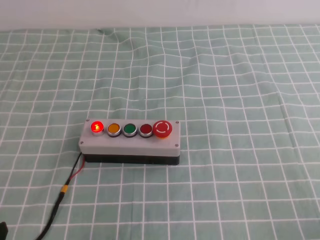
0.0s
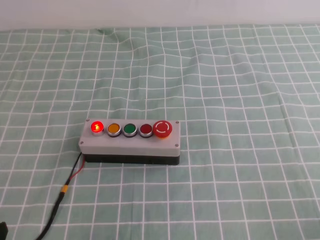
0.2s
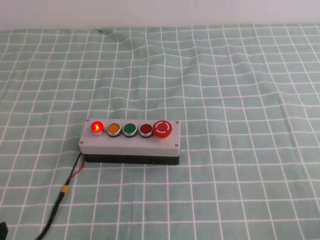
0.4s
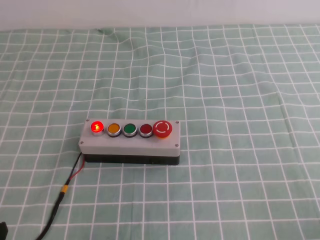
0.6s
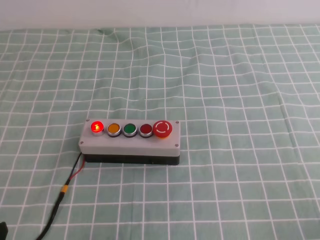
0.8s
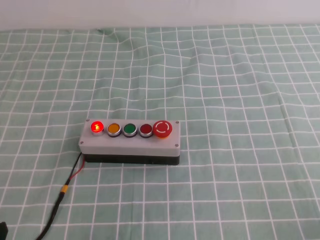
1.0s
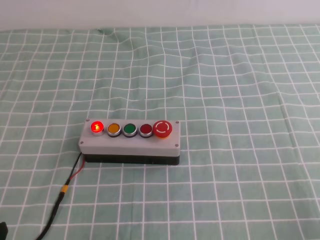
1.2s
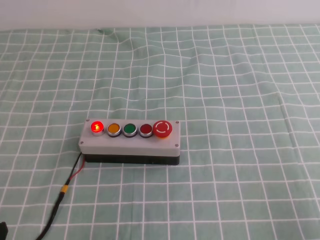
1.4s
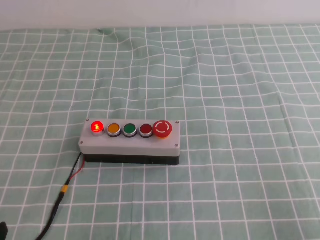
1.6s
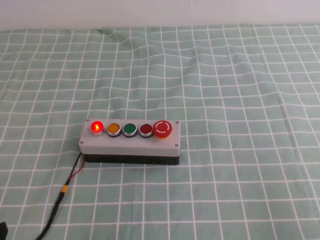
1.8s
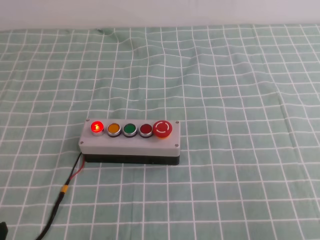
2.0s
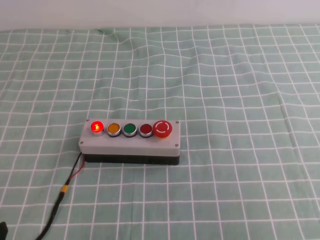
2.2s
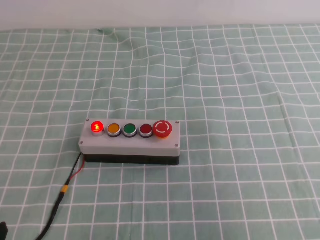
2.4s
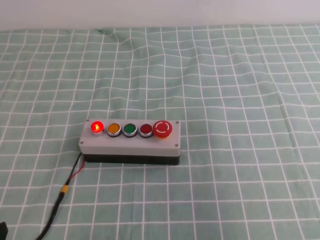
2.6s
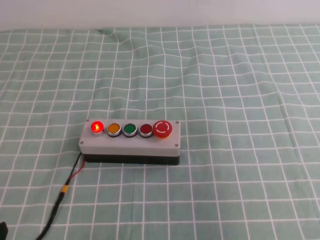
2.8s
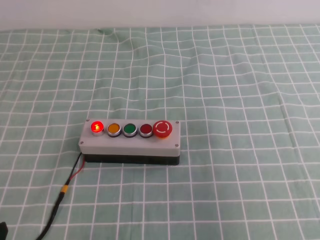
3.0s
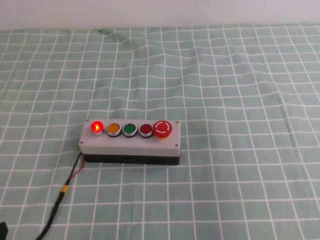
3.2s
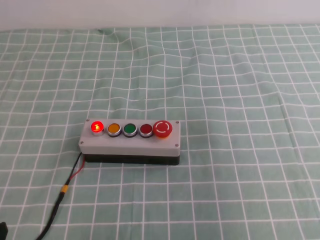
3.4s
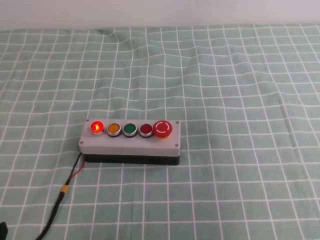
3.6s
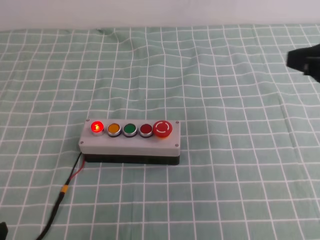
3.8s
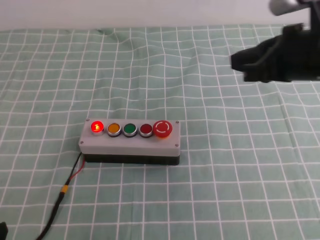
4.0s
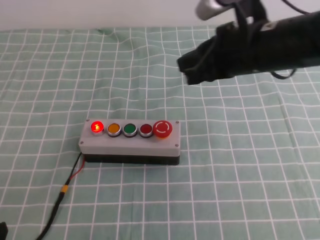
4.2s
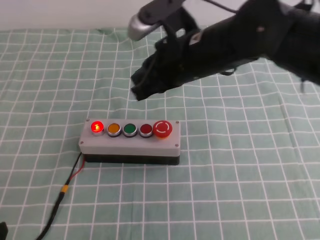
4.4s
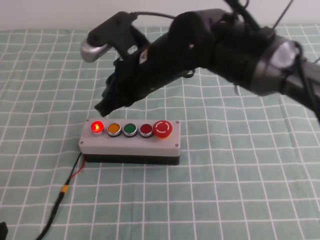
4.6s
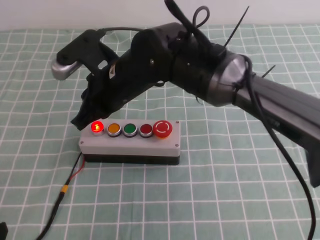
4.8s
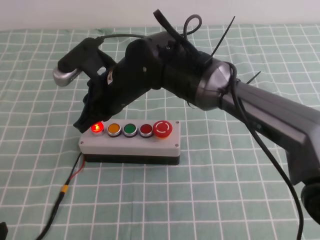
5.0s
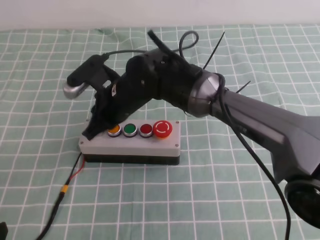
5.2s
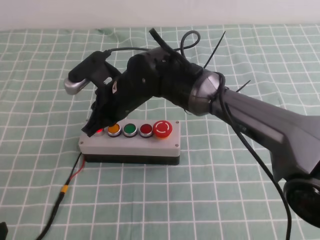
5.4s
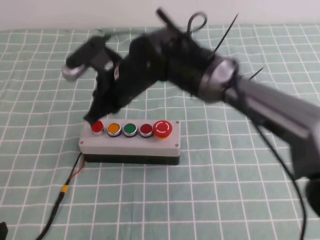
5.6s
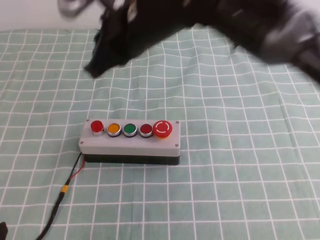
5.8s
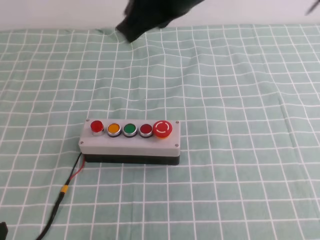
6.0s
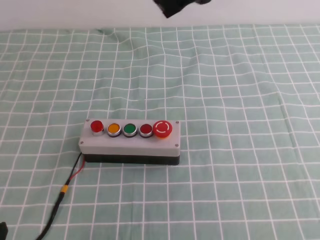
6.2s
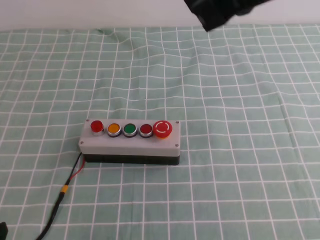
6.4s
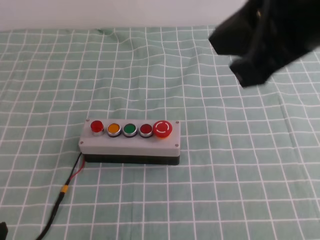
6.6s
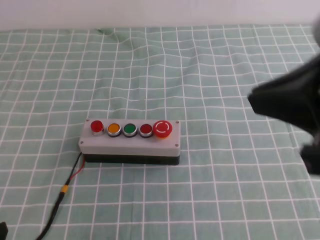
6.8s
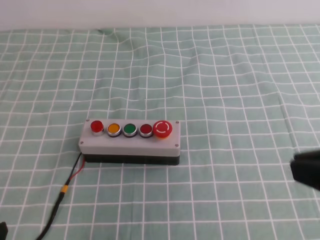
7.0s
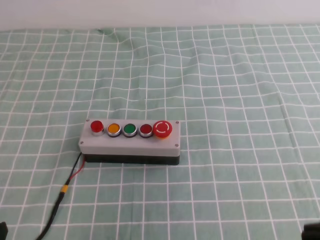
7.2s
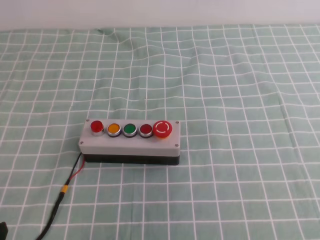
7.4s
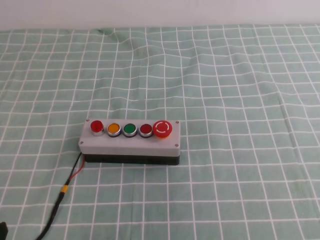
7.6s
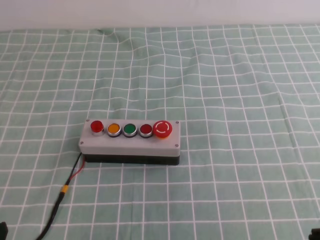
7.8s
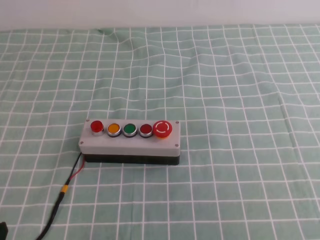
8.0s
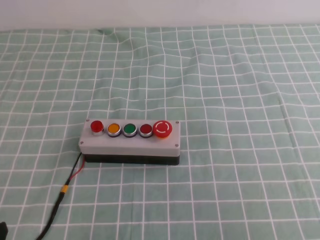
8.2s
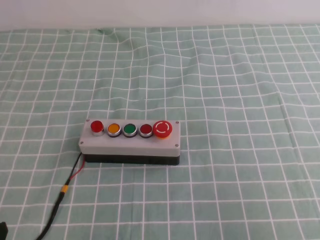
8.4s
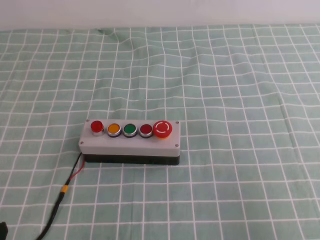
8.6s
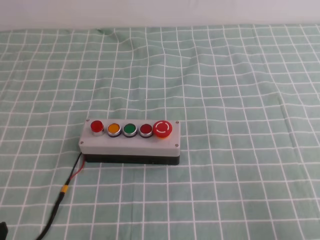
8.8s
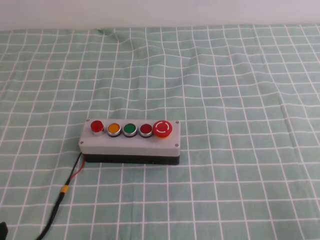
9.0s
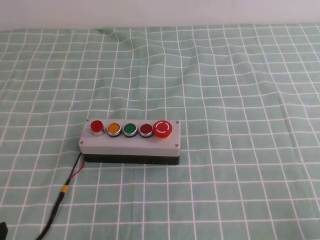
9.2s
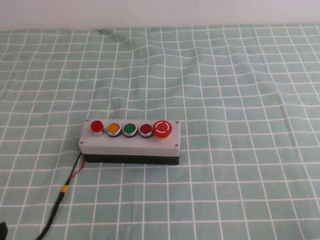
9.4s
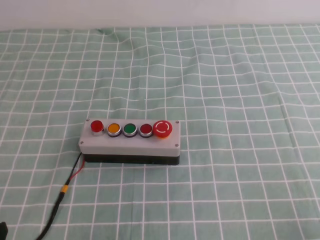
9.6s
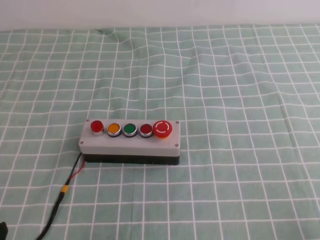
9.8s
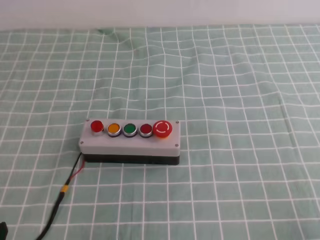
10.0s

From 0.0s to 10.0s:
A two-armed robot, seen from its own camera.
Task of the whole recording: press the button switch on the cyan tablecloth with the right gripper to turn off the button.
Step, from 0.0s to 10.0s: Press the button to turn off.
From 1.4s to 2.8s: The right gripper moves upward, about 20 cm.
From 2.8s to 4.2s: The right gripper heads forward and to the left, covering some 30 cm.
From 4.2s to 5.8s: The right gripper moves to the left, about 15 cm.
From 5.8s to 7.2s: The right gripper shifts roughly 35 cm backward and to the right.
From 7.2s to 8.6s: The right gripper is displaced to the right and downward by roughly 10 cm.

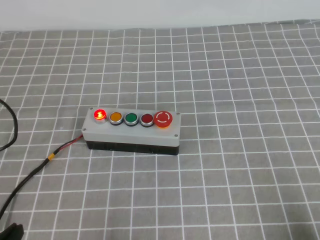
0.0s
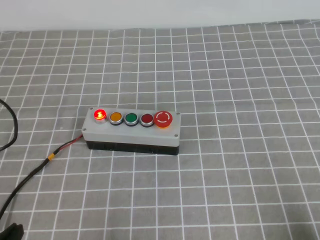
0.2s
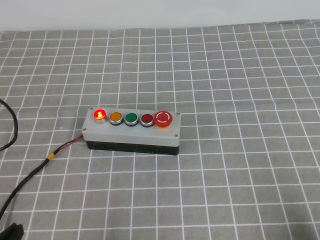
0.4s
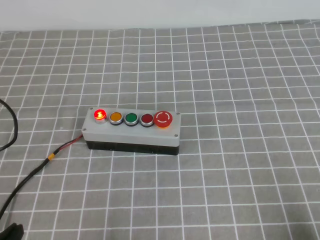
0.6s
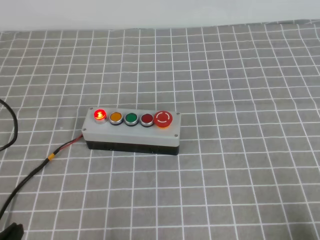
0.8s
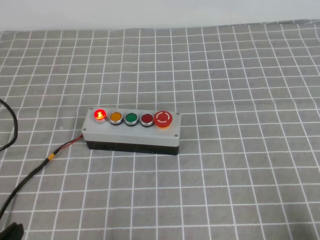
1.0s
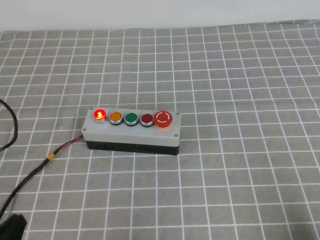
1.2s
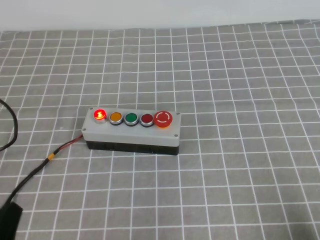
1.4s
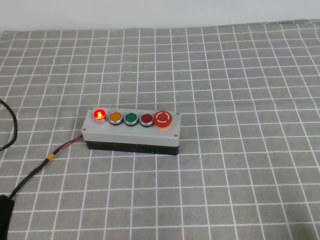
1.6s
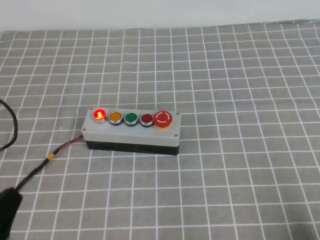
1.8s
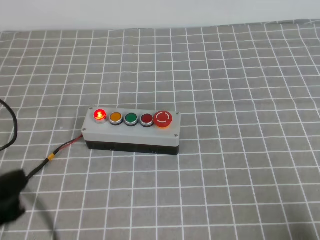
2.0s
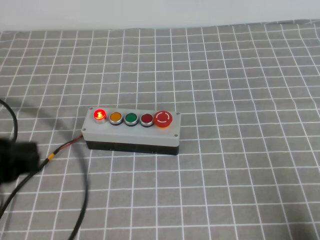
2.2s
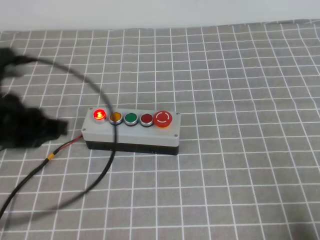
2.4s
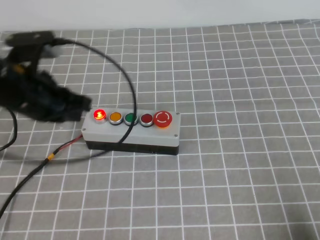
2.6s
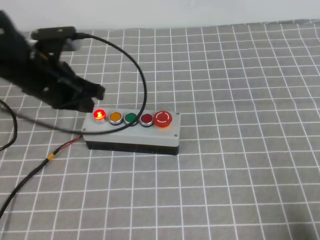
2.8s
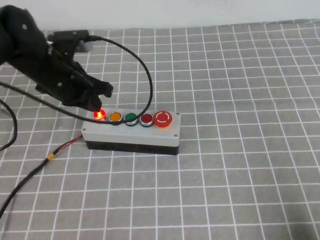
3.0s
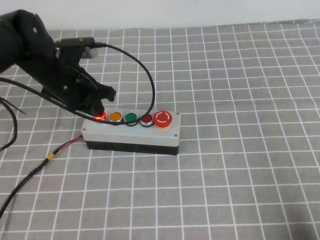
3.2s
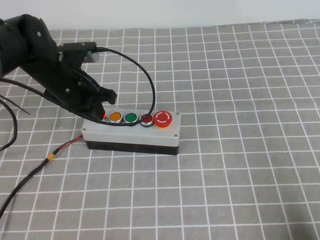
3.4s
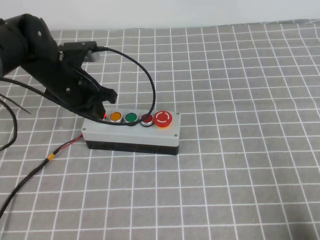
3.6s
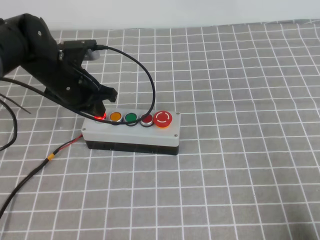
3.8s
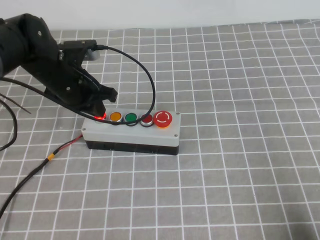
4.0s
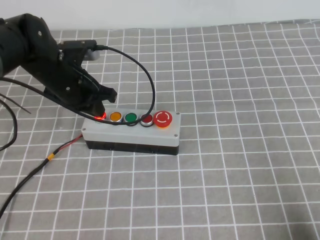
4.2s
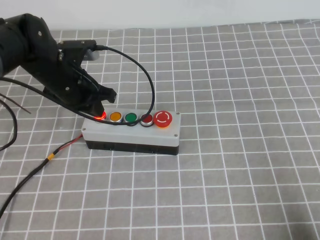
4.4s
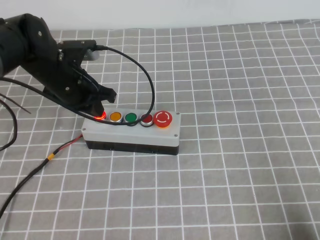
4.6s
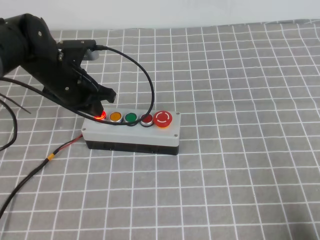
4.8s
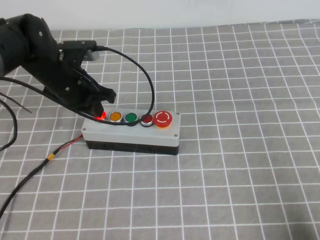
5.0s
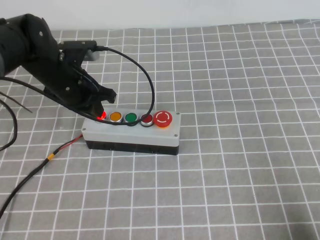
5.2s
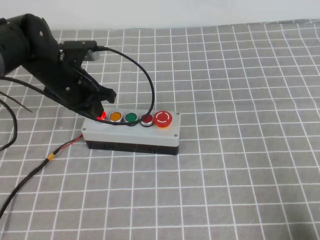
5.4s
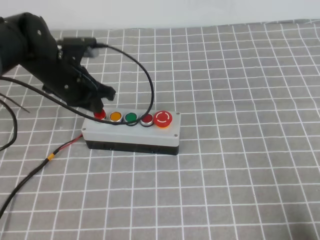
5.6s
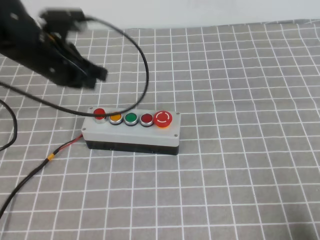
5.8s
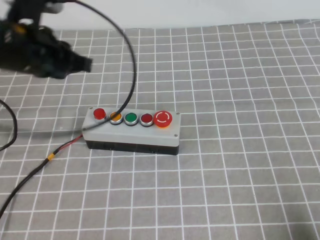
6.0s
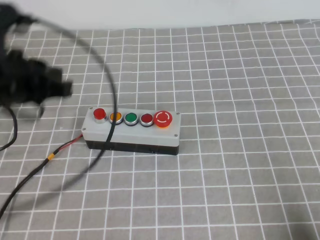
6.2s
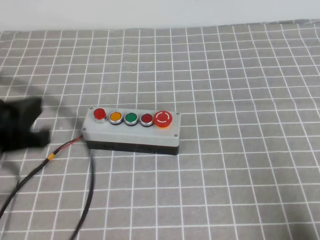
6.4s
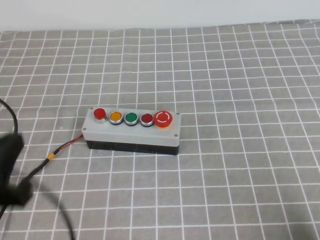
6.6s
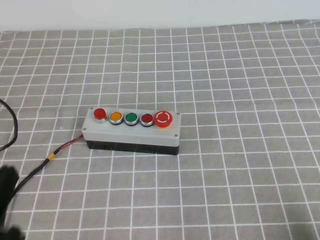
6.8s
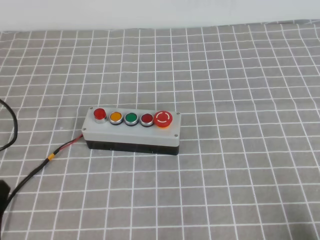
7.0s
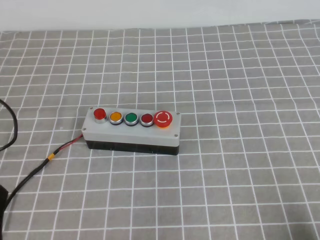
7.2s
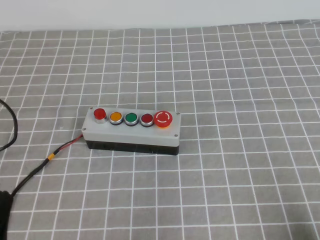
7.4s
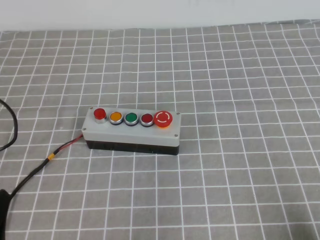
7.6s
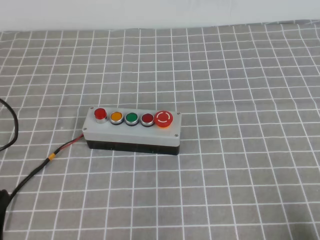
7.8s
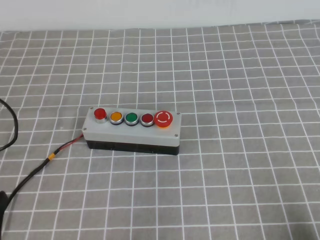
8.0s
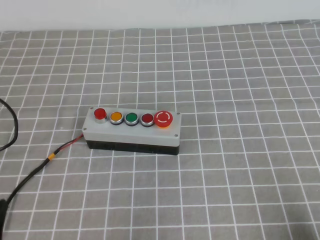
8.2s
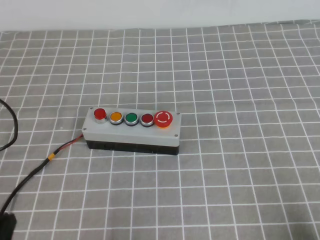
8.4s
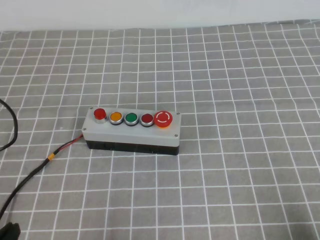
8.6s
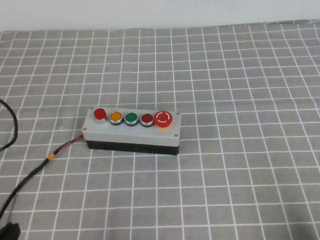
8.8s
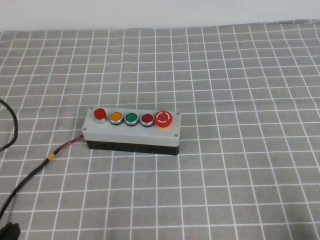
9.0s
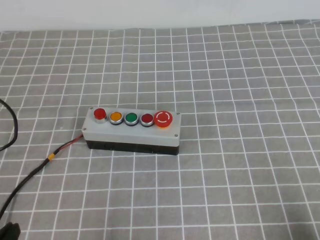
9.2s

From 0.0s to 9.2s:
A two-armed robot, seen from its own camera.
Task of the whole recording: press the button switch on the grey tablecloth with the left gripper to turn off the button.
Step, from 0.0s to 9.2s: Press the button to turn off.
From 1.6s to 3.0s: The left gripper travels forward by about 30 cm.
From 3.0s to 4.6s: The left gripper shifts by about 5 cm.
From 4.6s to 6.2s: The left gripper moves upward and backward, roughly 15 cm.
From 6.2s to 7.6s: The left gripper moves backward and downward, roughly 25 cm.
